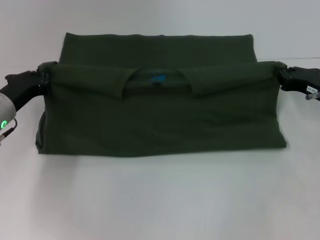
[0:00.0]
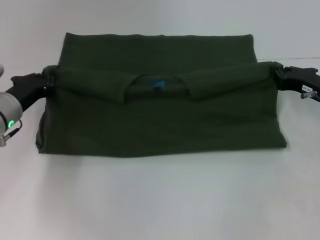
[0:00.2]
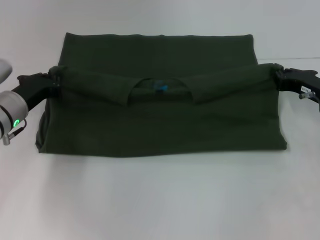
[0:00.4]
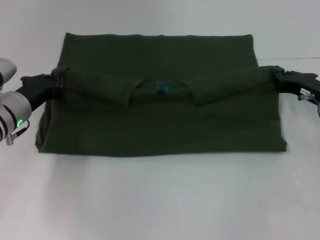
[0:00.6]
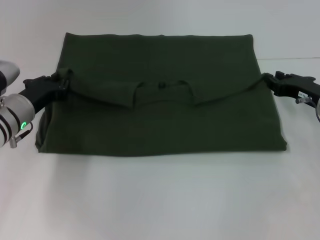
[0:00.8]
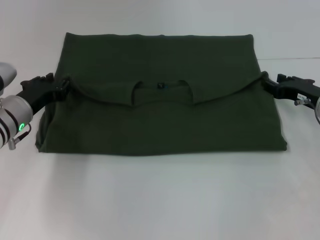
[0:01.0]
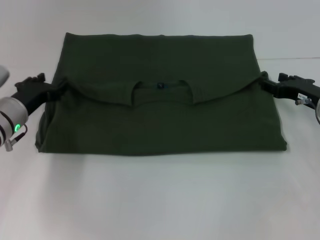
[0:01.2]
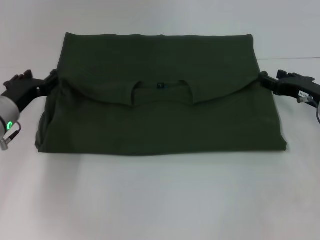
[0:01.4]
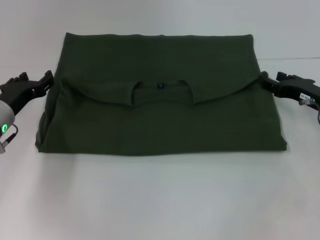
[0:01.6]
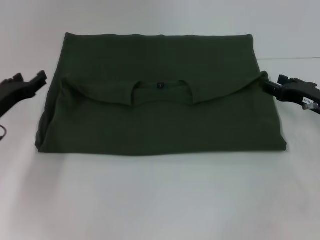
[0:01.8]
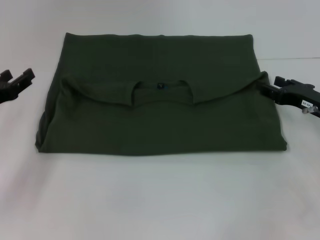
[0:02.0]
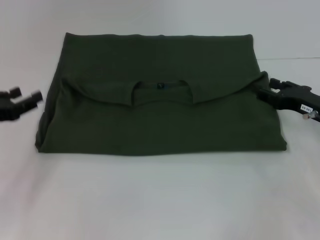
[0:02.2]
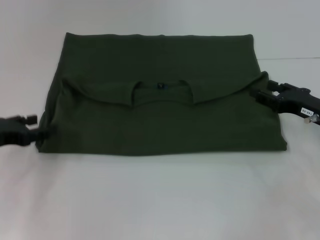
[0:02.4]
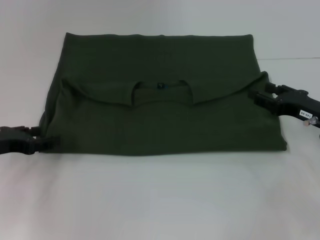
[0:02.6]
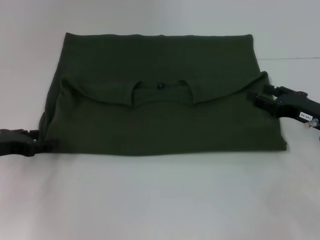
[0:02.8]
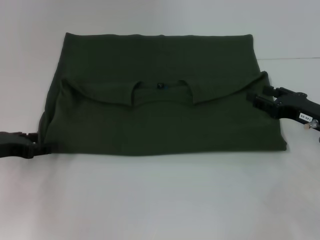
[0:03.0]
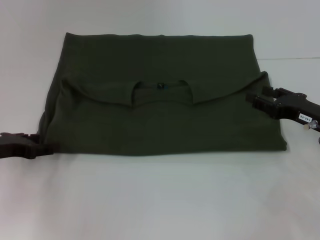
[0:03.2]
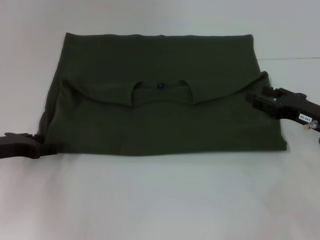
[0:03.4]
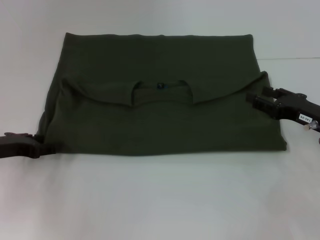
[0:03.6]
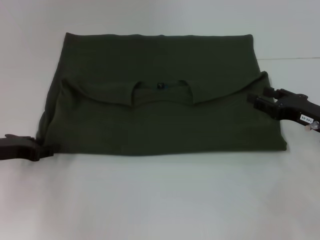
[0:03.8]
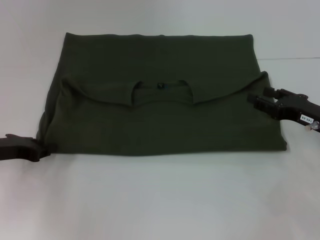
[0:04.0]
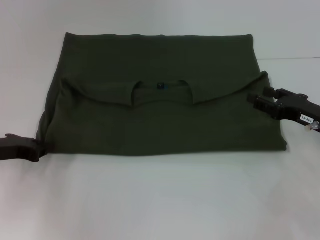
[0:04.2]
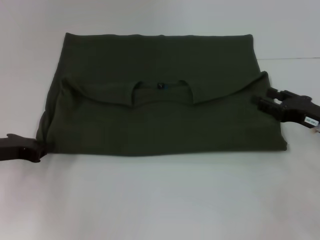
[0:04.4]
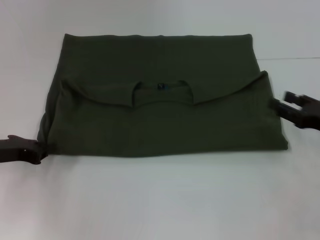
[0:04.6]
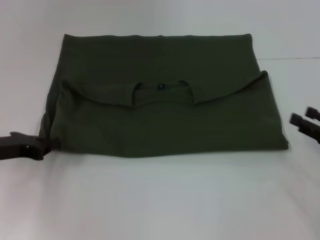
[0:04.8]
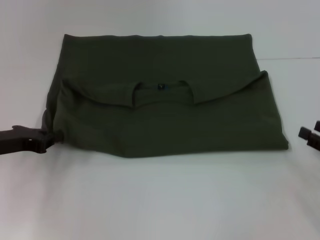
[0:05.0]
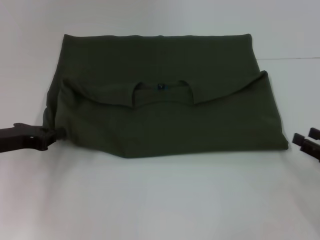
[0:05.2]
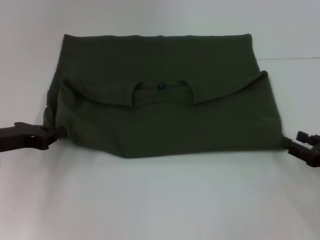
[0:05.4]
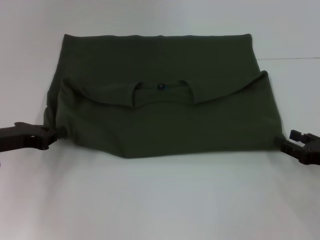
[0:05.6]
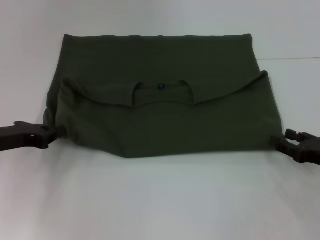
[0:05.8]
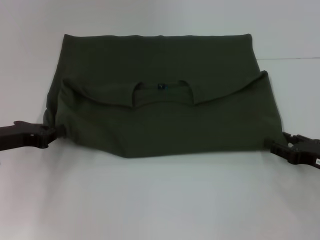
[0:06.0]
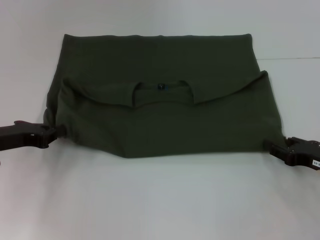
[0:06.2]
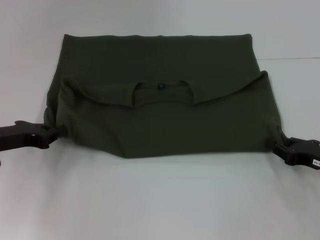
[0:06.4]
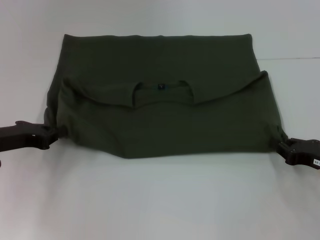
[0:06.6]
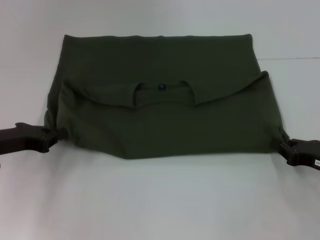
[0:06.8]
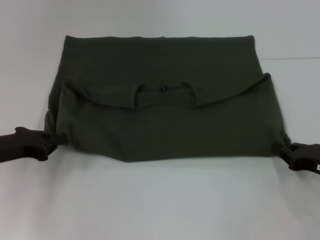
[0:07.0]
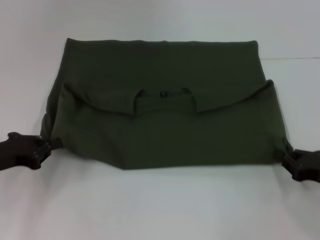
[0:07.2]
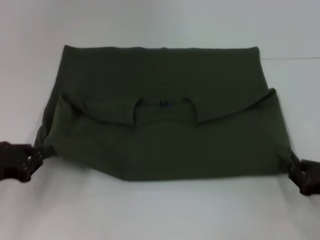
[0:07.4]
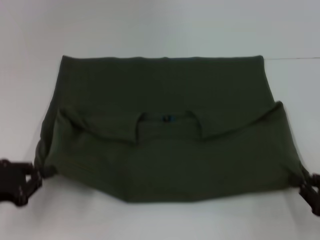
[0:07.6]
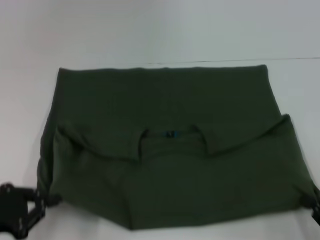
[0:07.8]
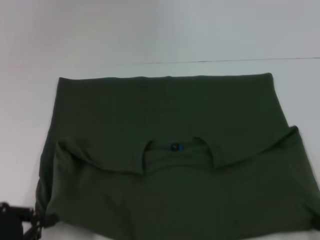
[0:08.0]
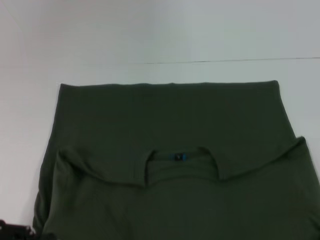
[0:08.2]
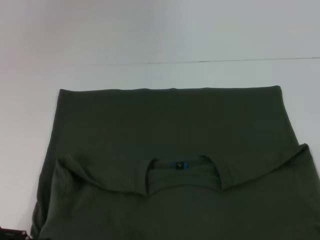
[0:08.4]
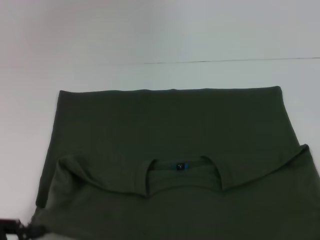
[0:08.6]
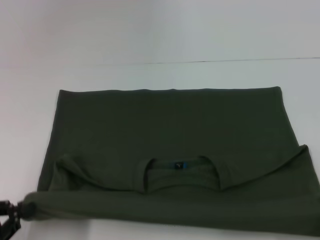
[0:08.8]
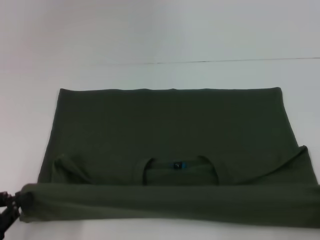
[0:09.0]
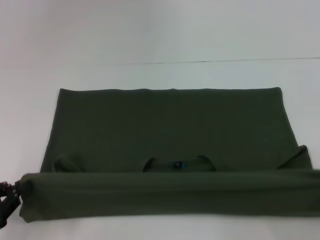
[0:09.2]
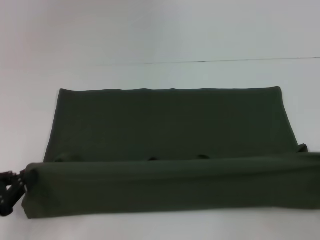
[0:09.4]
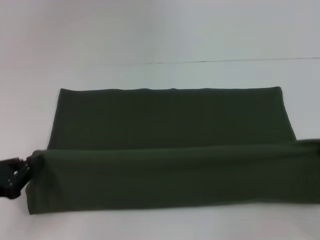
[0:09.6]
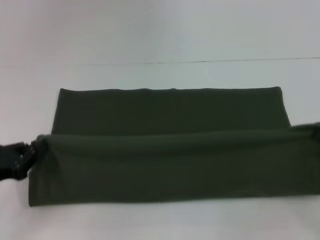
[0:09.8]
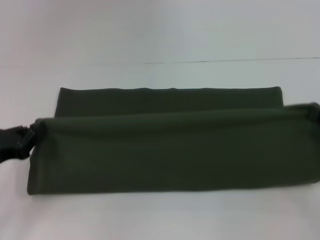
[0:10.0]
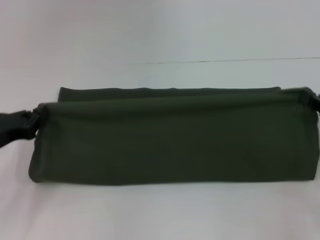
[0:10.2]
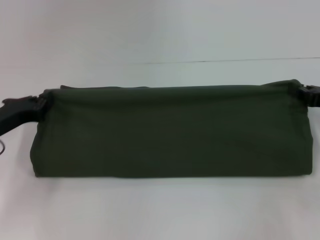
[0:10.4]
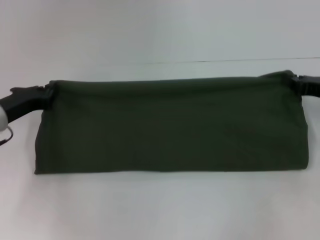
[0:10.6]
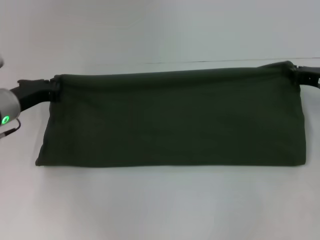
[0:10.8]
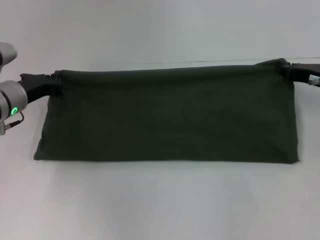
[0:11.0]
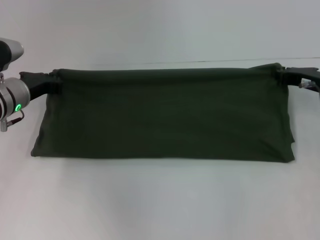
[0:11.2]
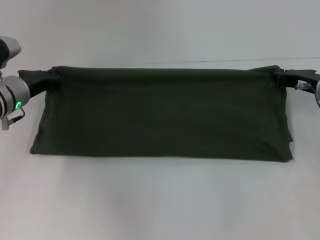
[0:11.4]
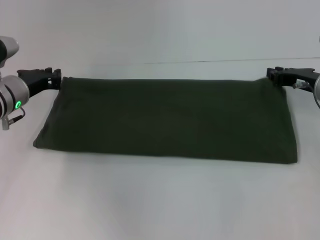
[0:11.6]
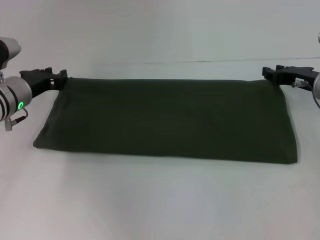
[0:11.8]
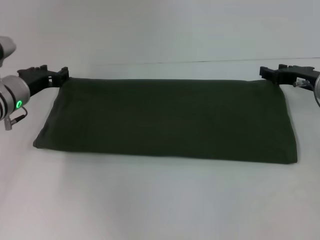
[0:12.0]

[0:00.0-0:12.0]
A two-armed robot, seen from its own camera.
Step, 0:02.0 to 0:08.6: Pull the clothes with your left hand.
Step, 0:02.0 to 0:08.6: Pull the clothes with your right hand.
0:00.0 to 0:01.6: The left gripper opens its fingers. Meanwhile the right gripper opens its fingers.
0:01.6 to 0:03.0: The left gripper is displaced to the left by some 5 cm.
0:03.0 to 0:04.4: The left gripper closes up.
0:06.0 to 0:07.6: The two grippers go about 10 cm backward. The right gripper closes.
0:07.6 to 0:09.0: The grippers both shift backward by roughly 5 cm.
0:09.0 to 0:10.4: Both grippers travel together forward, approximately 20 cm.
0:10.4 to 0:12.0: The left gripper moves forward and to the right, about 10 cm, and opens up. The right gripper moves forward and to the left, some 10 cm, and opens up.

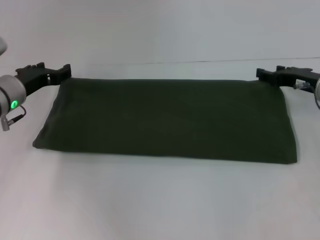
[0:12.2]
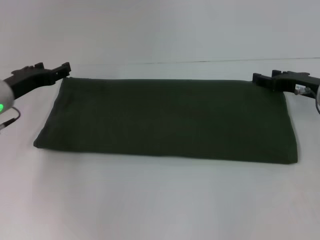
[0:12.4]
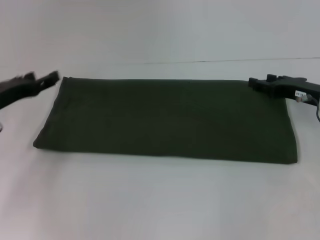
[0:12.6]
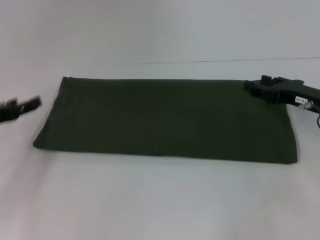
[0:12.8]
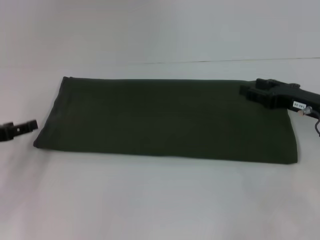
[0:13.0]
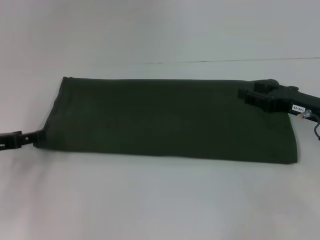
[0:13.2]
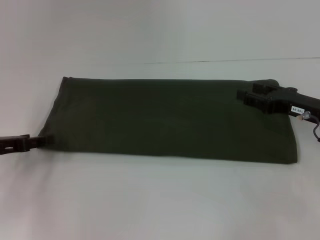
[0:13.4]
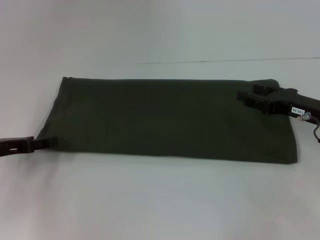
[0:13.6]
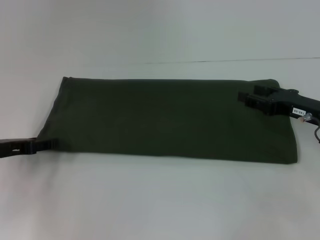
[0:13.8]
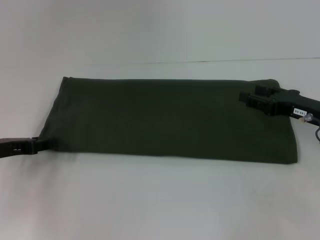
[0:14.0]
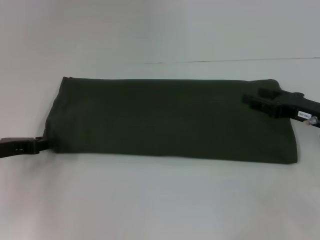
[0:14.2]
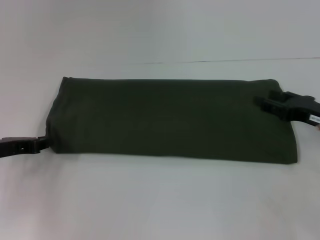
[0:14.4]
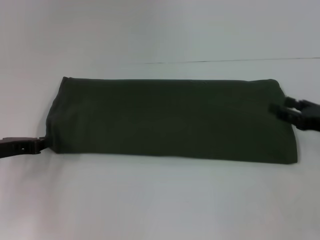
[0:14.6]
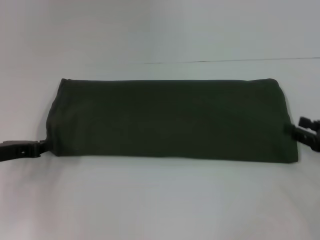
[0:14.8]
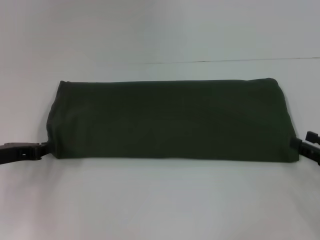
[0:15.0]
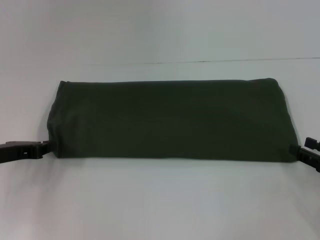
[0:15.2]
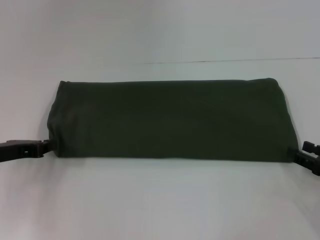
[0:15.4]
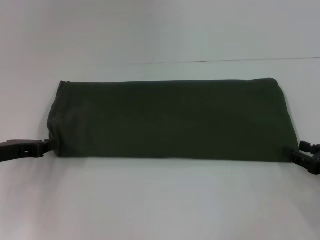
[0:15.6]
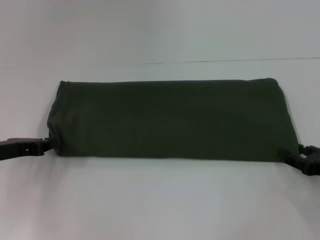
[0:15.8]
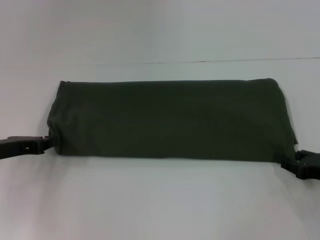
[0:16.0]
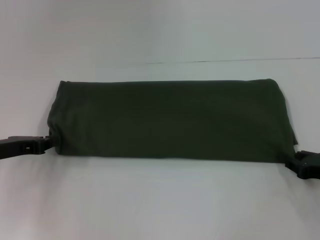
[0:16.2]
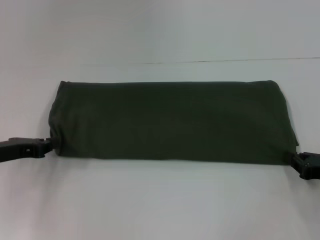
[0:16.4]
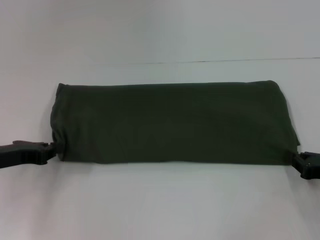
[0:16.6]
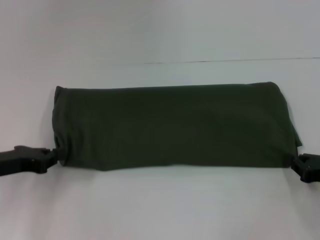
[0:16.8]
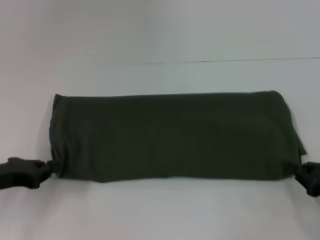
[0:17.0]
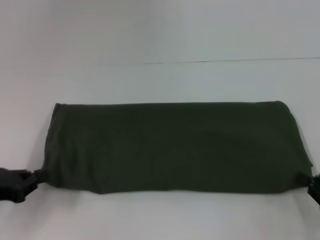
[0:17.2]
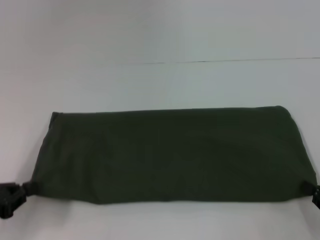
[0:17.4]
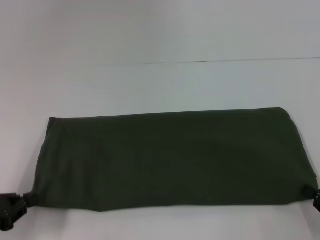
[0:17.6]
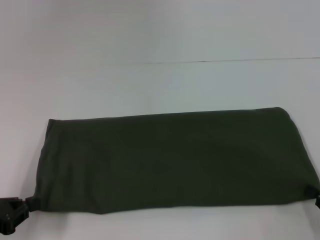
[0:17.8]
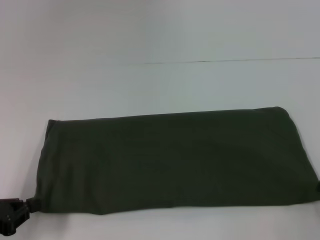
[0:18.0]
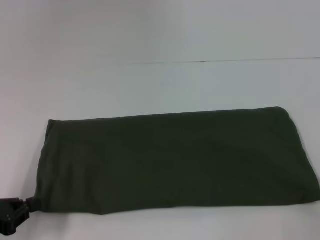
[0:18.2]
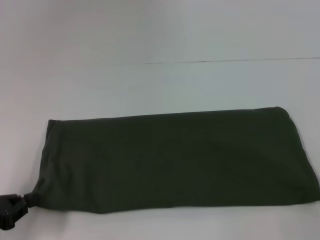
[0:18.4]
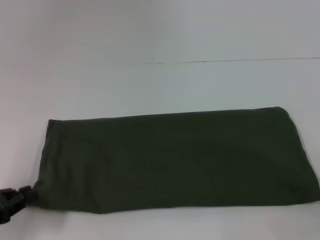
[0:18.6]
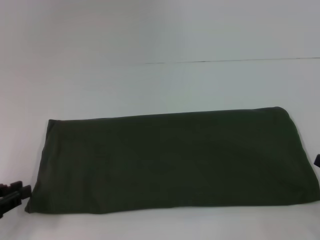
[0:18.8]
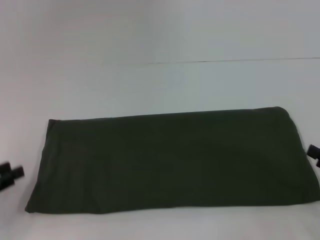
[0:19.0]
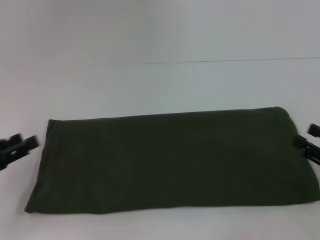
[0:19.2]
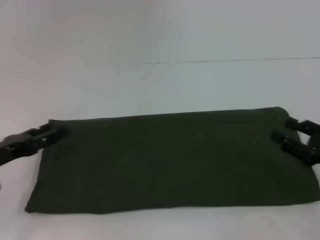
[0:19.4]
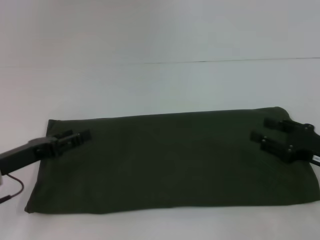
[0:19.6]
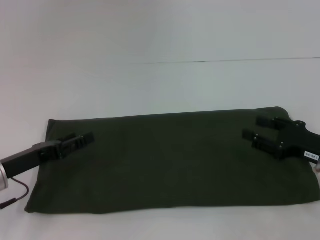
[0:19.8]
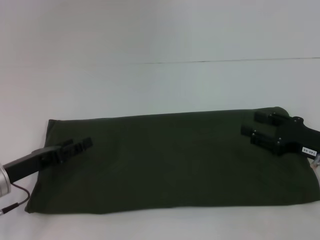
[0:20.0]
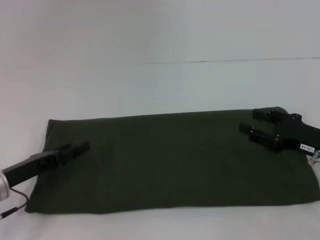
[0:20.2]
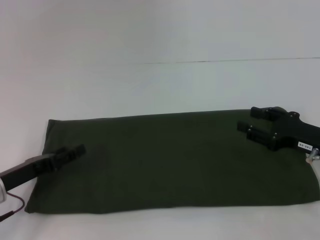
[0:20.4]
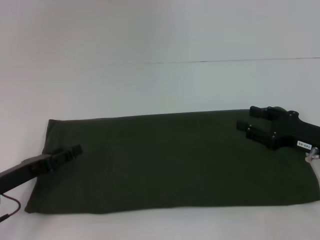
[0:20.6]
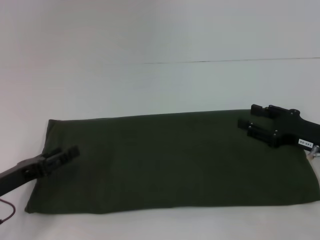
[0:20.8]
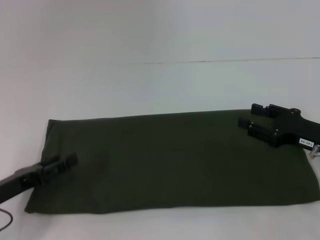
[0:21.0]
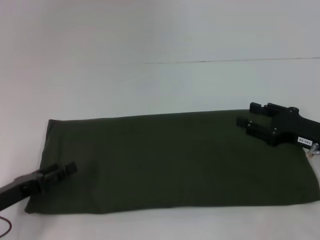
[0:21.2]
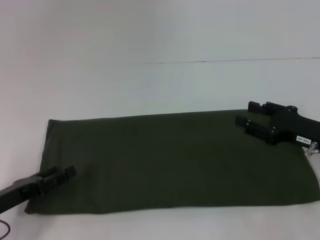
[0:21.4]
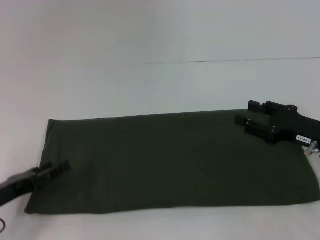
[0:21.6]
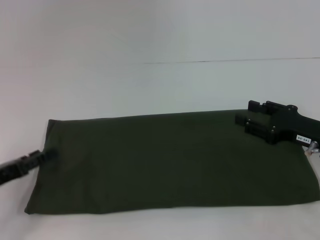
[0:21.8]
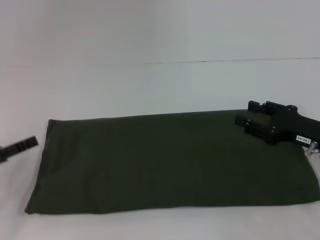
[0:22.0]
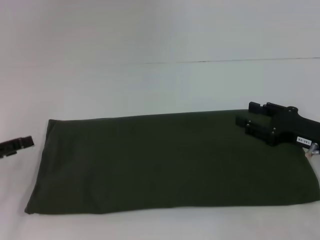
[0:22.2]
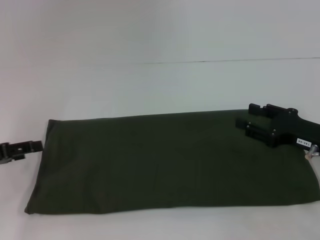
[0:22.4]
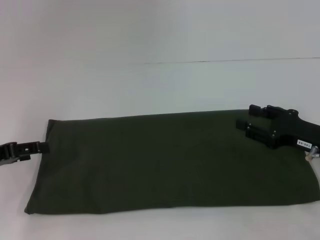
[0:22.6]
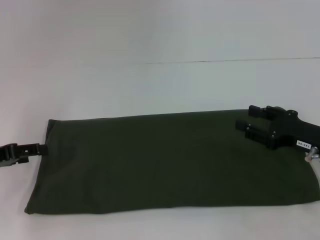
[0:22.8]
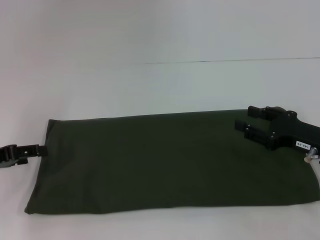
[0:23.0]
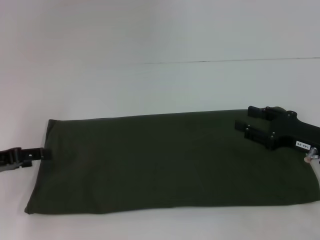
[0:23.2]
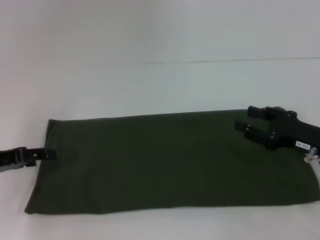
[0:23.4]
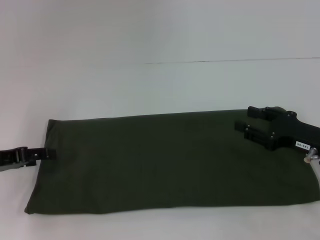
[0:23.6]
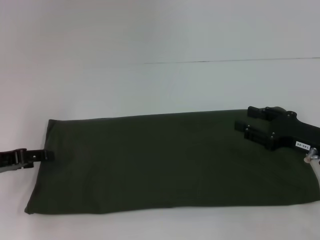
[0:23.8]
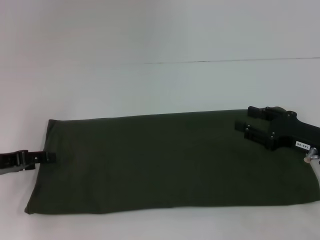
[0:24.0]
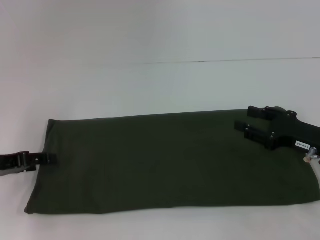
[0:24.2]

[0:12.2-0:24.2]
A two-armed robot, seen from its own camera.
Step, 0:12.6 to 0:18.4: Pull the clothes with your left hand.
Step, 0:12.6 to 0:18.4: Pull the clothes with your right hand.
0:12.2 to 0:13.8: The left gripper heads backward and to the left, covering roughly 10 cm. Meanwhile the right gripper travels backward by some 5 cm.
0:13.8 to 0:15.2: The left gripper closes, while the right gripper heads backward and to the right, covering about 10 cm.
0:15.2 to 0:16.6: The right gripper closes up.
0:16.6 to 0:18.2: Both grippers travel together backward, approximately 10 cm.
0:18.2 to 0:19.8: The right gripper travels forward and to the left by some 15 cm, and opens its fingers. Meanwhile the left gripper is displaced forward and to the right by approximately 10 cm, and opens.
0:19.8 to 0:21.2: The left gripper shifts by some 5 cm.
0:21.2 to 0:22.6: The left gripper heads upward and forward, covering approximately 10 cm.
0:22.6 to 0:24.2: There are only small adjustments of the grippers.
